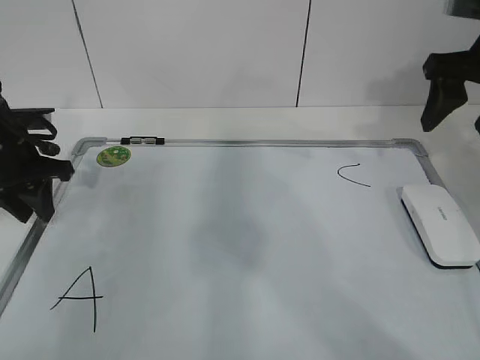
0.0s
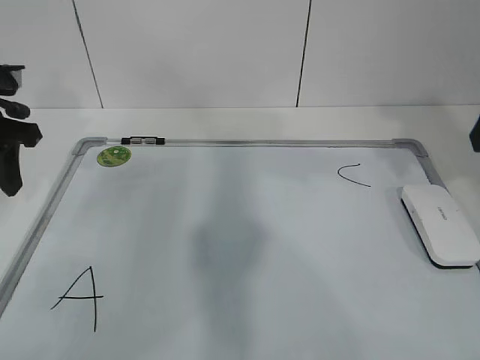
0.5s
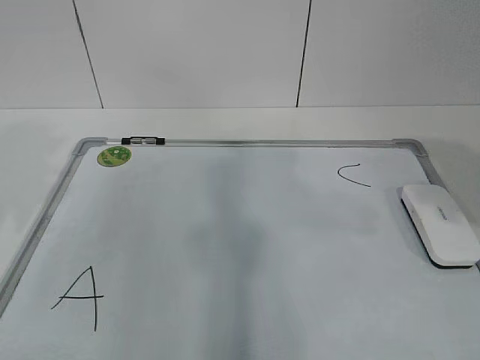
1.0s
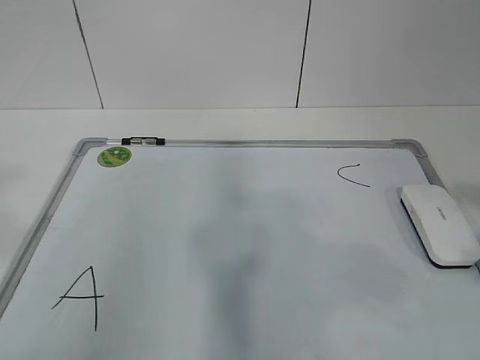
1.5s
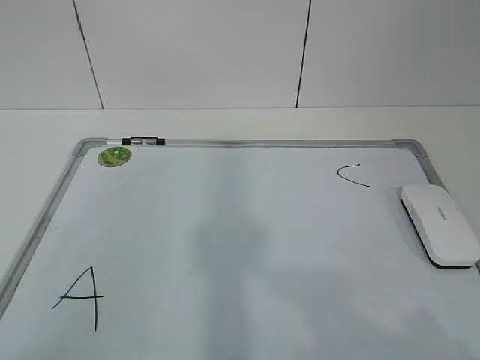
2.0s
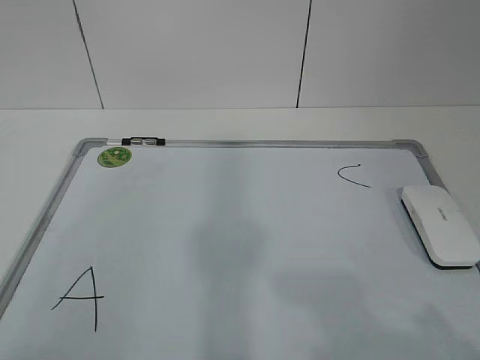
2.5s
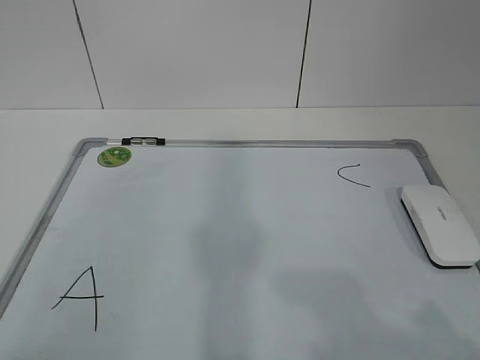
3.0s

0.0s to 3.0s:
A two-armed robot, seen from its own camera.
Task of the whole recording: pick up the eraser on the blackboard and erase the letter "B".
0.0s to 1.5s: The left gripper is displaced backward and upward by approximately 35 cm. The right gripper moves backward, approximately 30 cm.
1.5s to 3.0s: The right gripper travels downward and backward by approximately 10 cm.

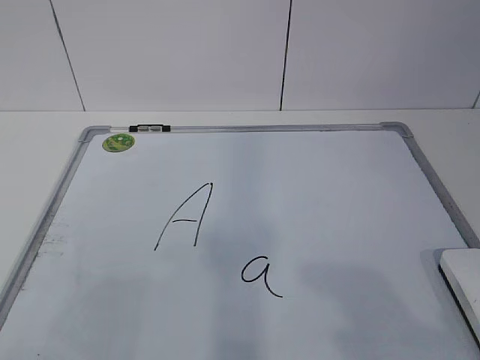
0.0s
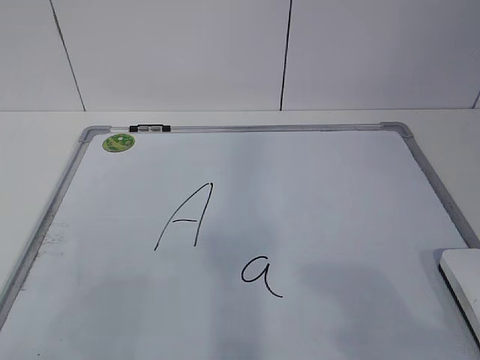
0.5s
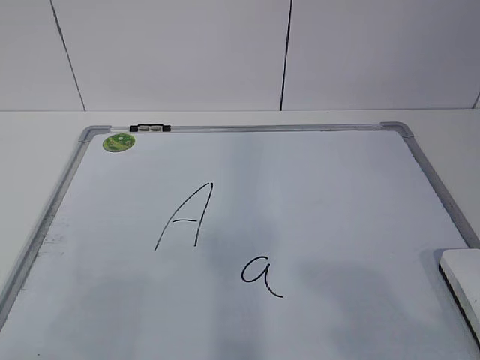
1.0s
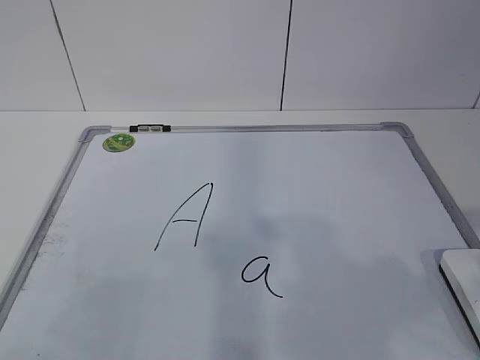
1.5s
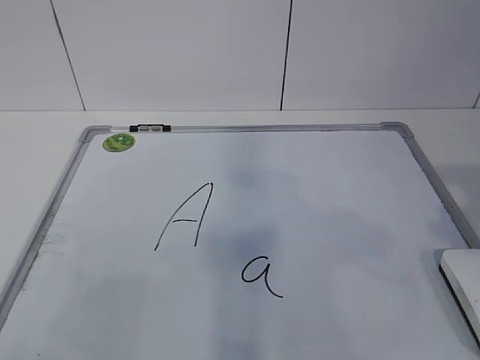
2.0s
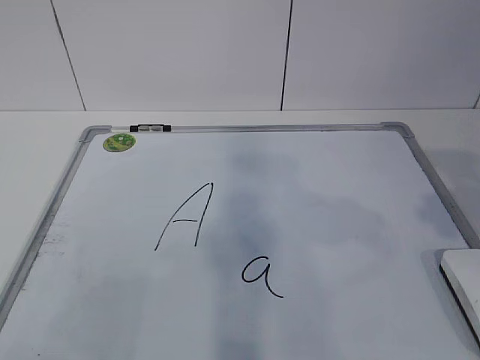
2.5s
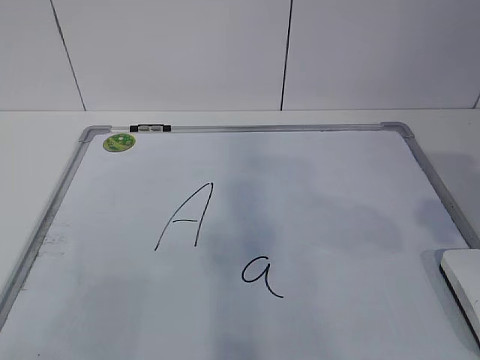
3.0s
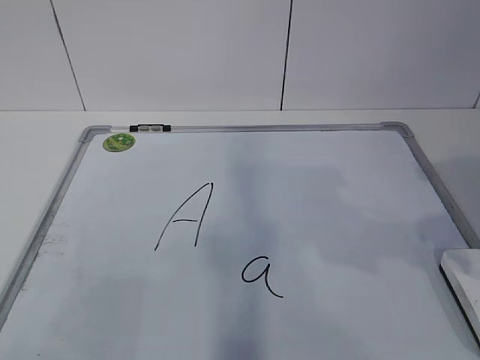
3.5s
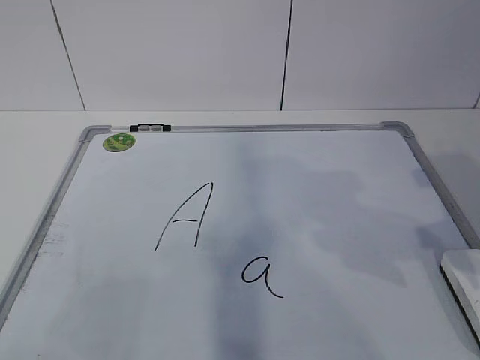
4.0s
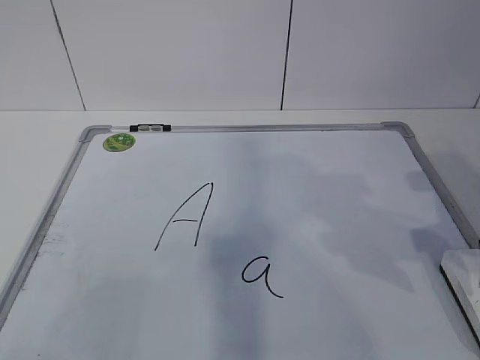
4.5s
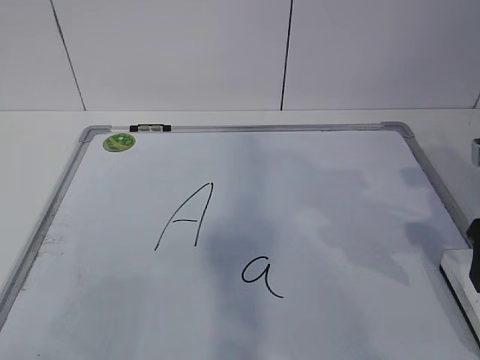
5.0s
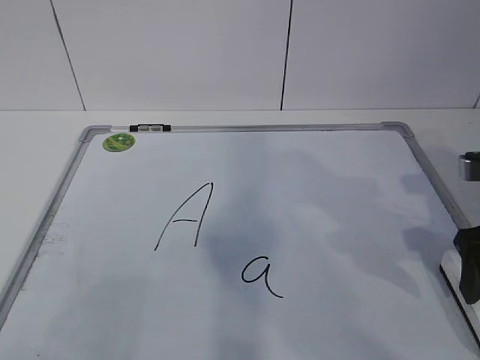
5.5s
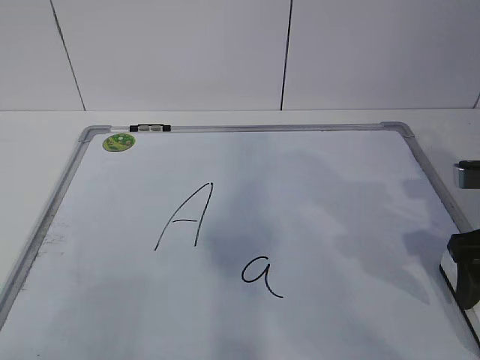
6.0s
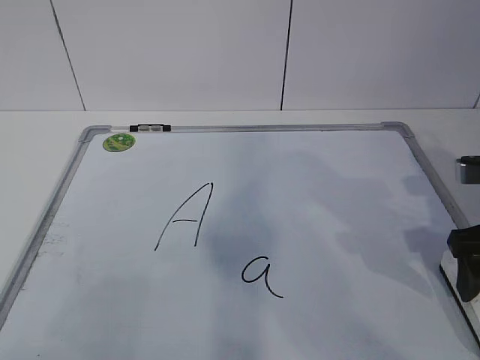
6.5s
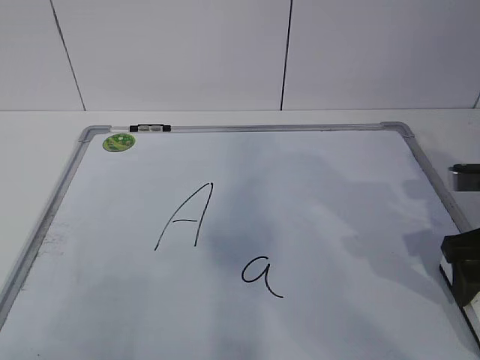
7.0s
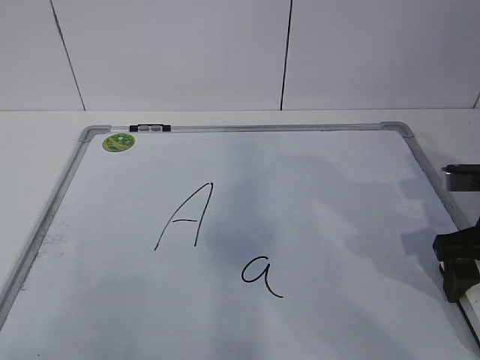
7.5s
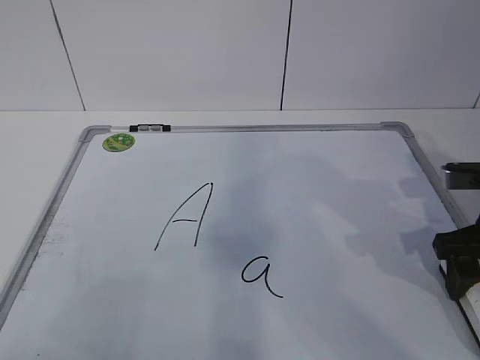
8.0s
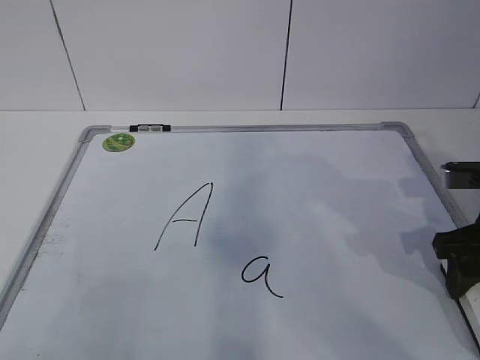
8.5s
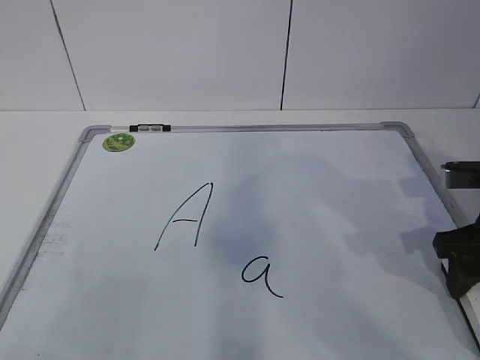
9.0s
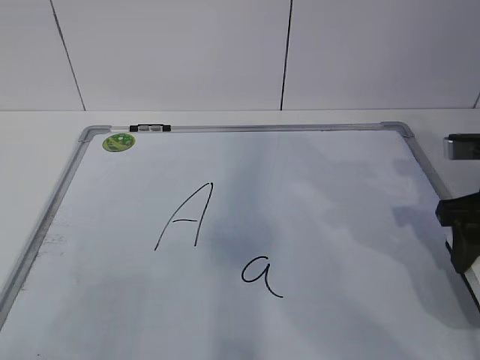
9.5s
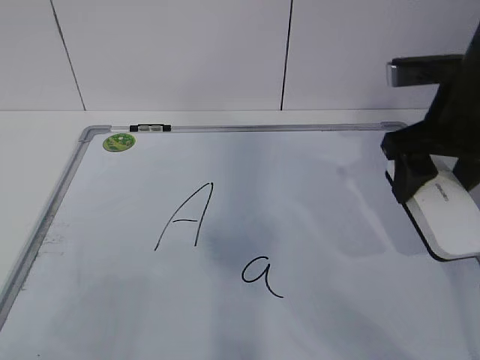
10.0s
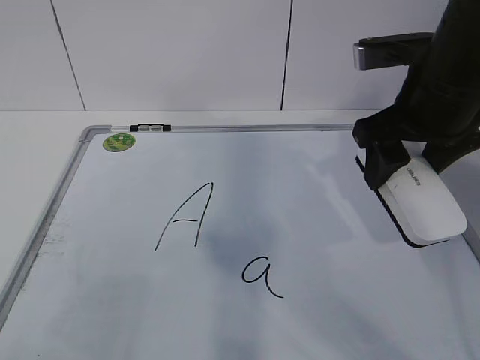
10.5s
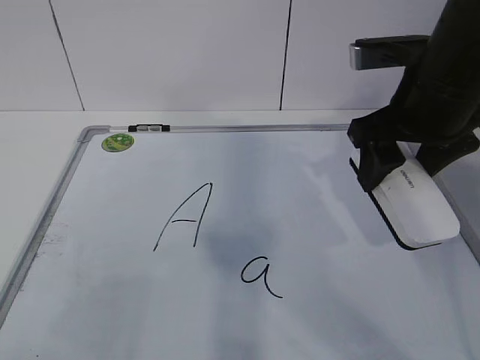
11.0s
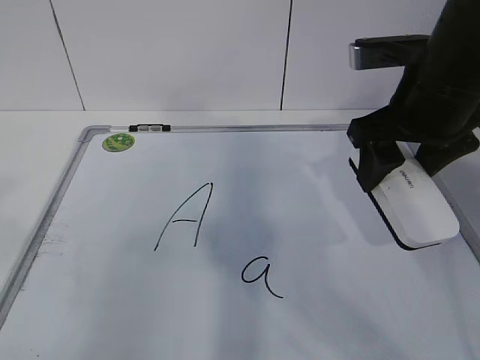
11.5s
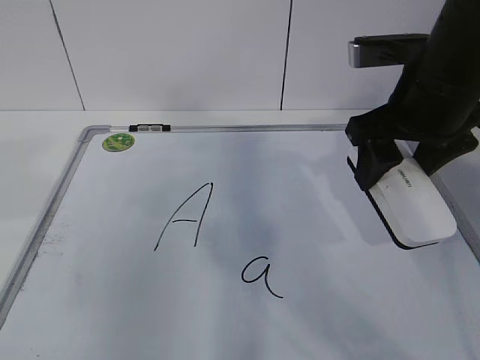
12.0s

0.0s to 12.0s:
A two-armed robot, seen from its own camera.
Task of the whole recording: pick up the eraser on the blackboard and erase the letter "a".
Step, 0.0s to 7.0s: Grab the eraser with your right hand.
Step, 7.5s to 12.0s: Hold the drawing board steady with your left hand.
4.0s to 6.0s: The right gripper moves downward, some 5 cm.
6.0s to 8.0s: The right gripper closes up.
8.0s to 10.0s: The right gripper travels upward and to the left by roughly 10 cm, and closes.

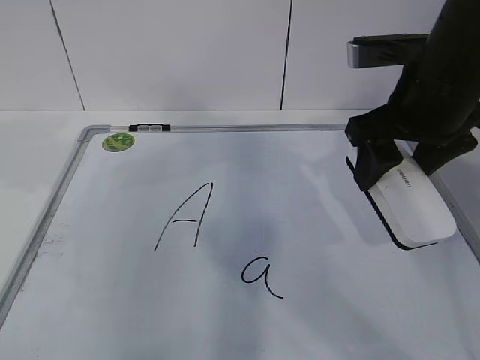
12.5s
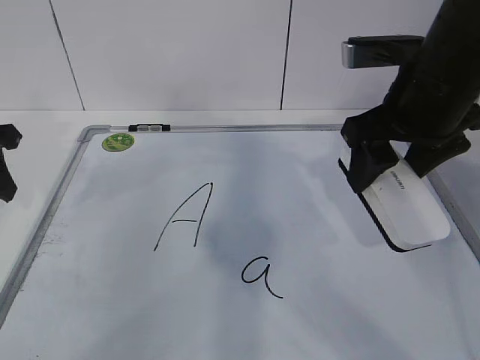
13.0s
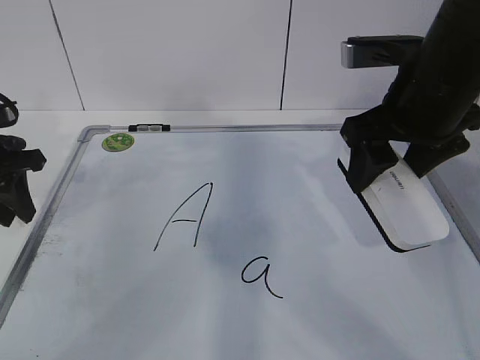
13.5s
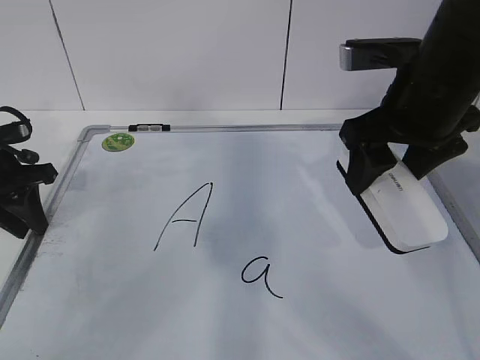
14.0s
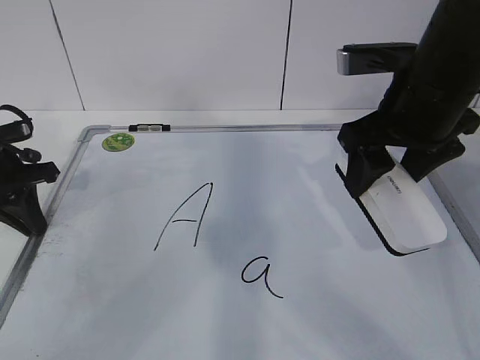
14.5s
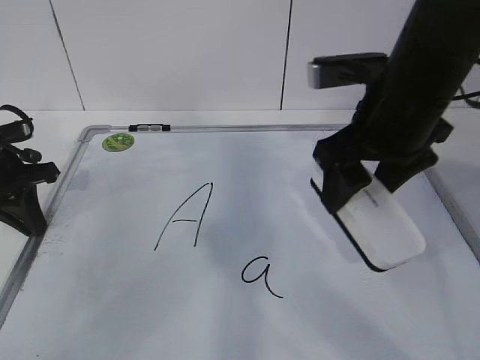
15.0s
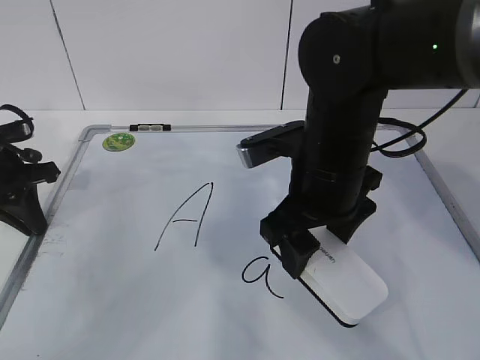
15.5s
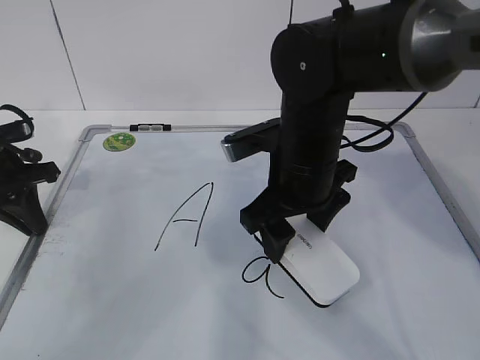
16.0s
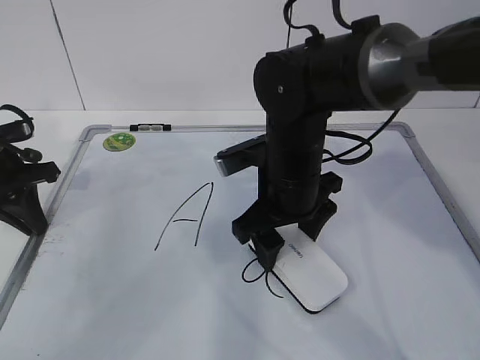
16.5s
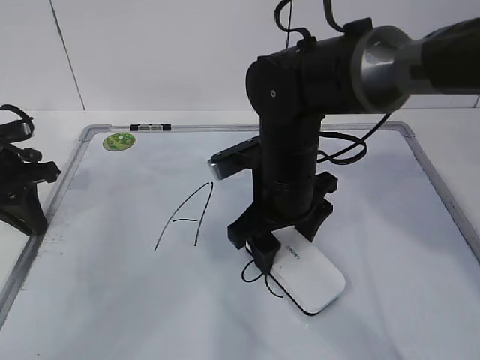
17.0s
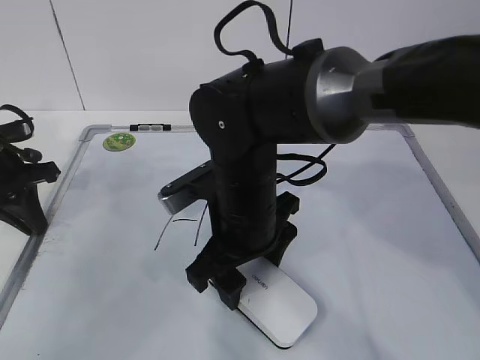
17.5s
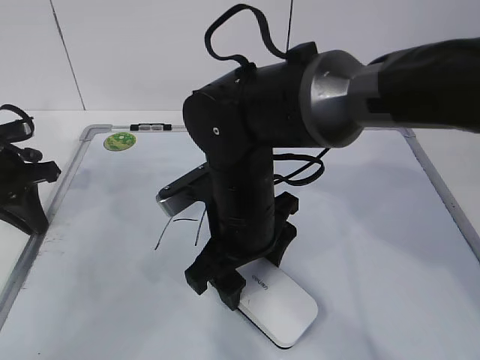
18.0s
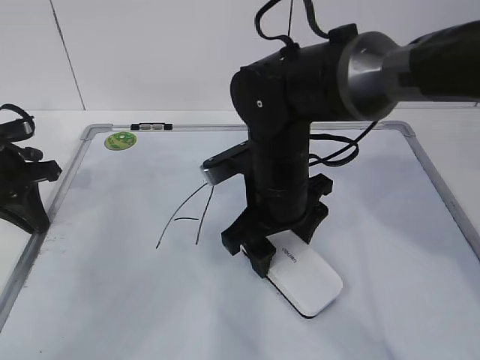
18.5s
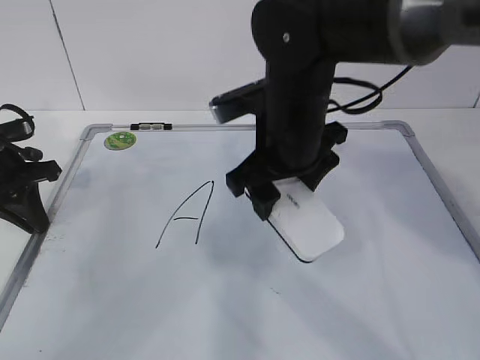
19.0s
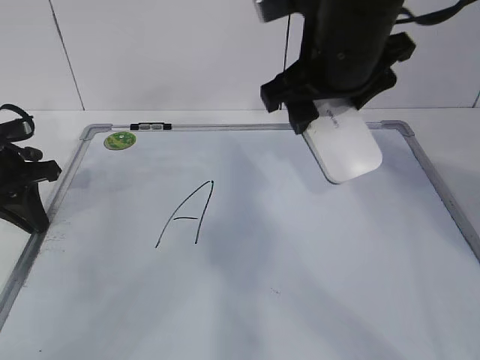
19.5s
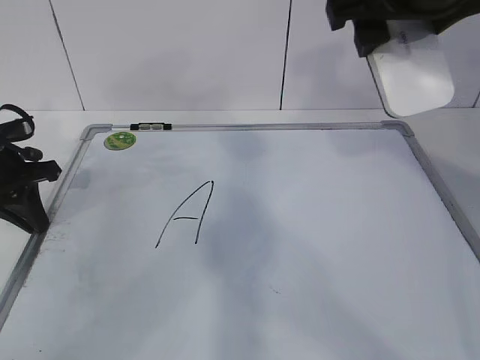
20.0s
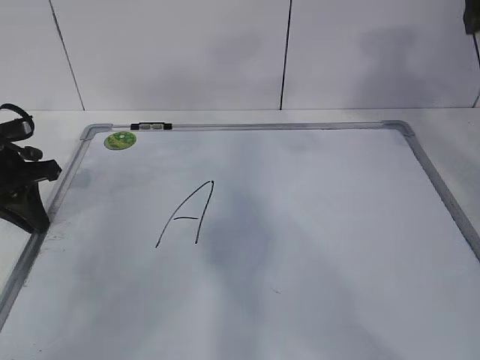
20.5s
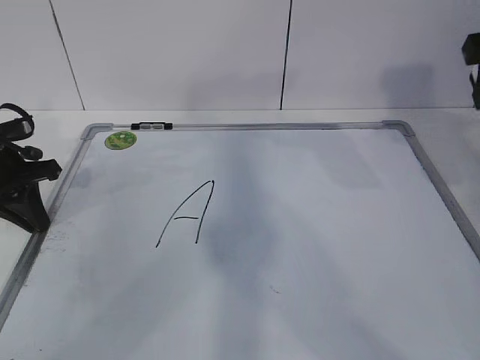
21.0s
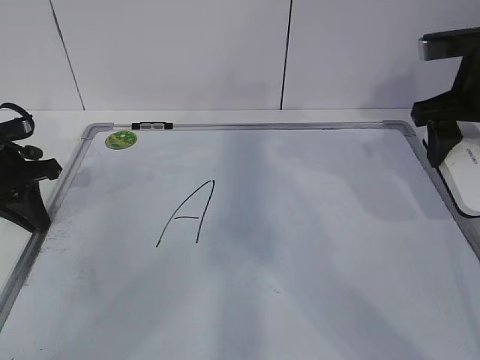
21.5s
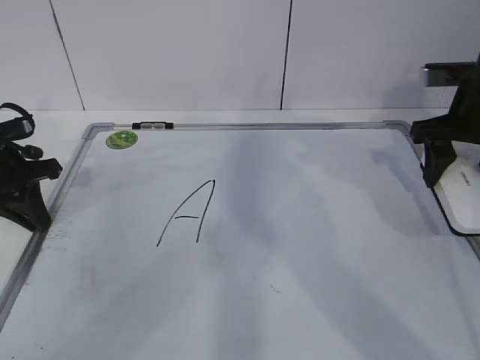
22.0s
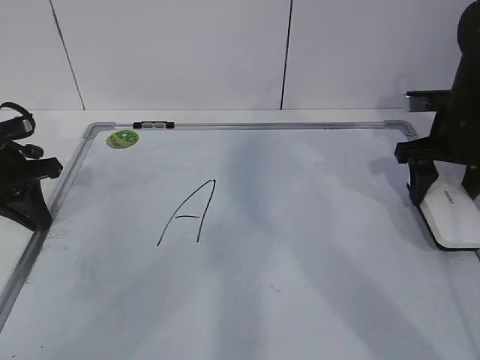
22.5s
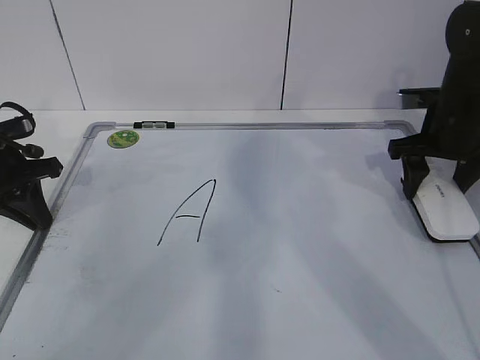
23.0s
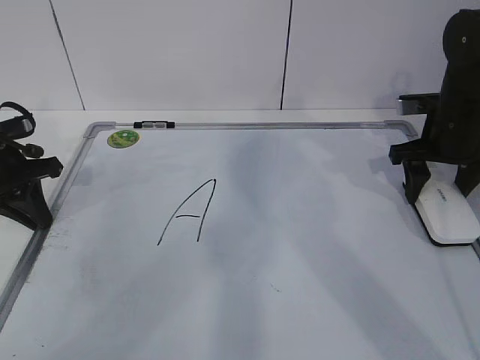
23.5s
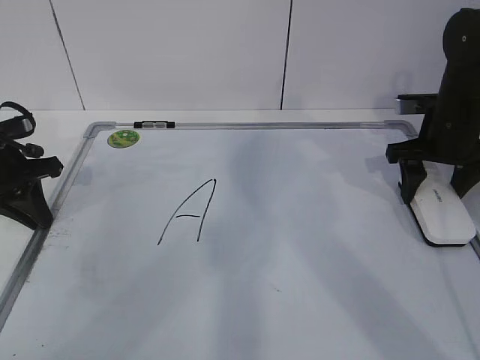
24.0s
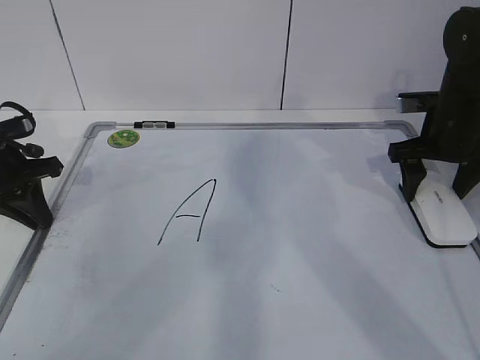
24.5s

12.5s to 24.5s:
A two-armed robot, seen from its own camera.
Task of the whole recording: pick up the eraser on the blackboard and erase the letter "a".
Step, 12.5s to 15.5s: Erase the letter a with your right hand.
Step, 16.0s to 20.0s: Put down the eraser with your right hand.
12.5s to 14.5s: The left gripper goes approximately 15 cm downward and forward, and closes up.
14.5s to 16.5s: The right gripper travels to the left and downward by some 15 cm.
18.5s to 20.5s: The right gripper shifts about 30 cm upward and to the right.
20.5s to 22.5s: The right gripper is displaced downward and forward by roughly 20 cm.
22.5s to 24.5s: The right gripper opens its fingers.
